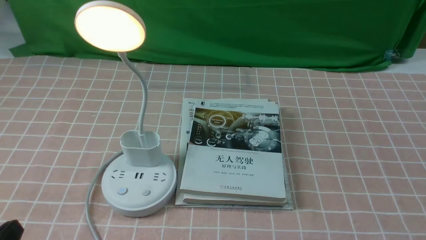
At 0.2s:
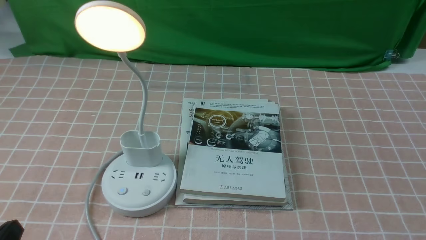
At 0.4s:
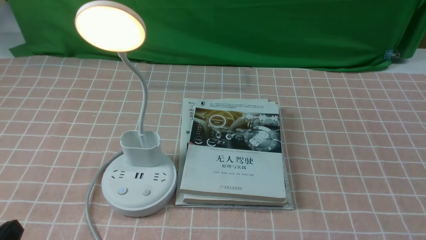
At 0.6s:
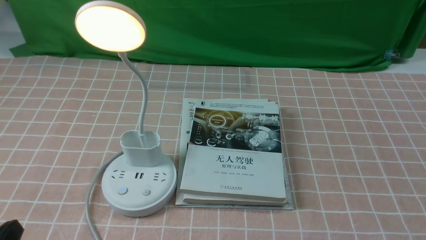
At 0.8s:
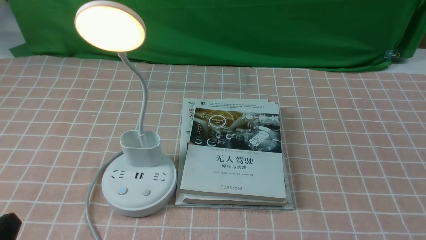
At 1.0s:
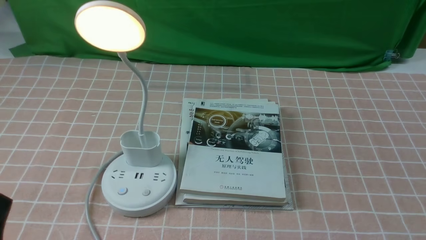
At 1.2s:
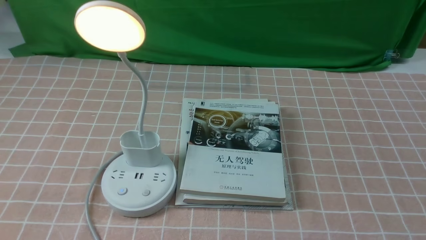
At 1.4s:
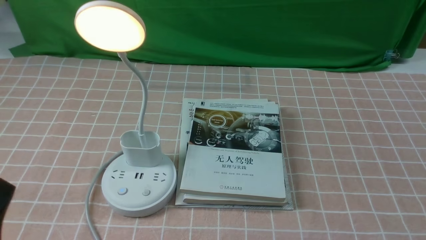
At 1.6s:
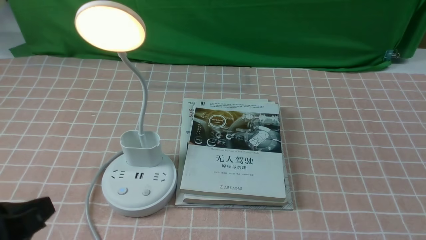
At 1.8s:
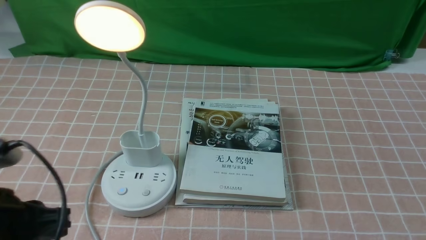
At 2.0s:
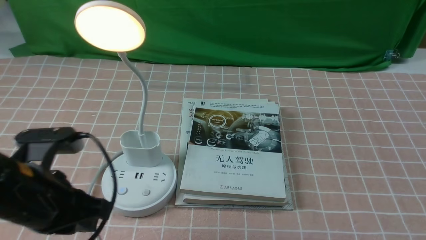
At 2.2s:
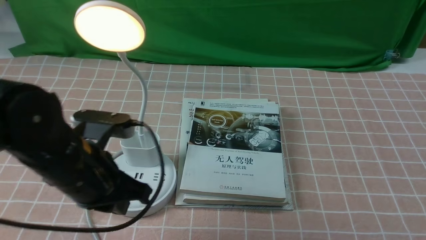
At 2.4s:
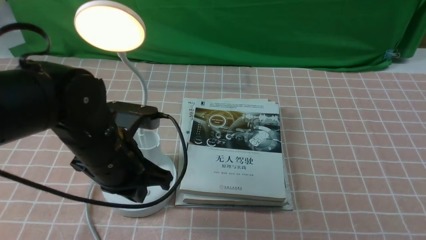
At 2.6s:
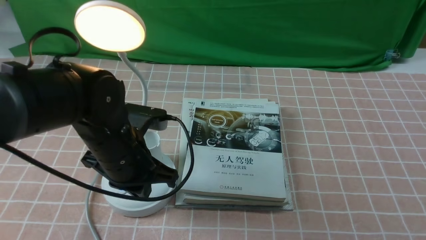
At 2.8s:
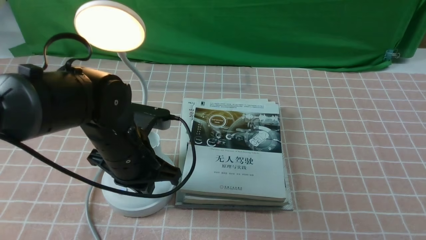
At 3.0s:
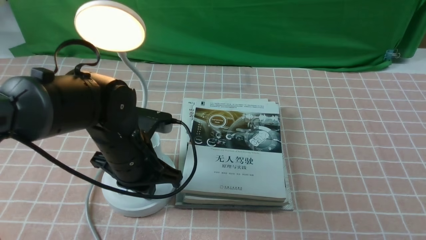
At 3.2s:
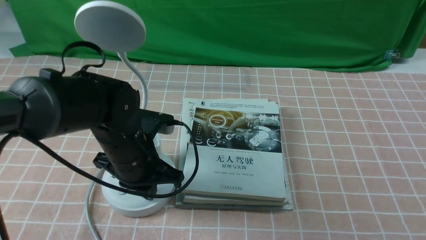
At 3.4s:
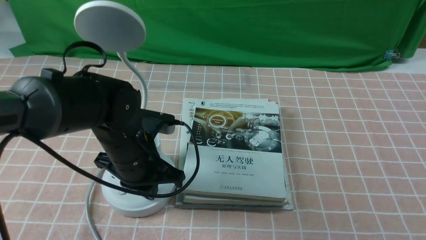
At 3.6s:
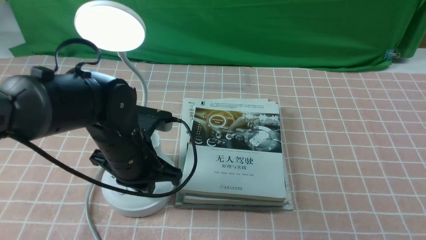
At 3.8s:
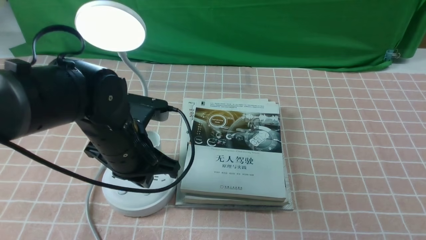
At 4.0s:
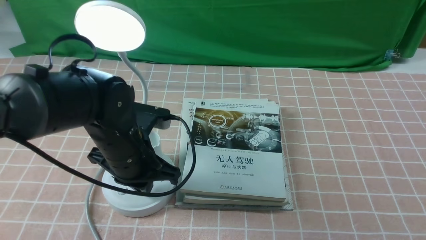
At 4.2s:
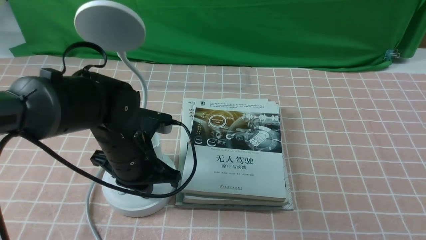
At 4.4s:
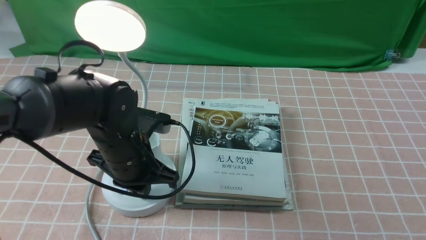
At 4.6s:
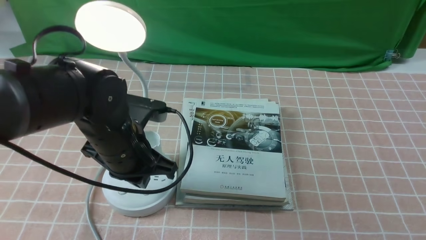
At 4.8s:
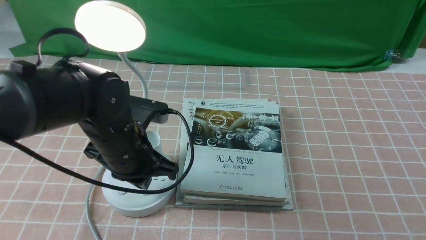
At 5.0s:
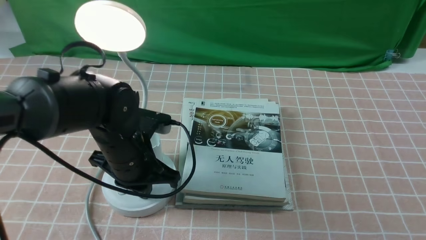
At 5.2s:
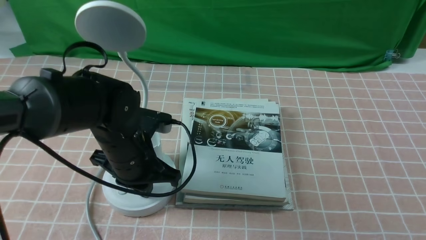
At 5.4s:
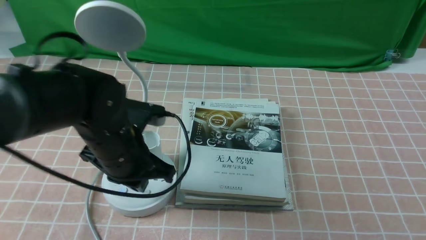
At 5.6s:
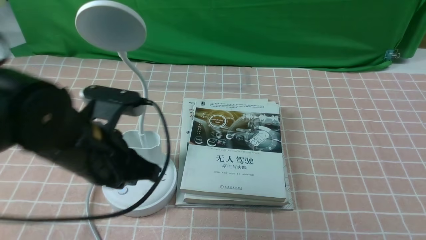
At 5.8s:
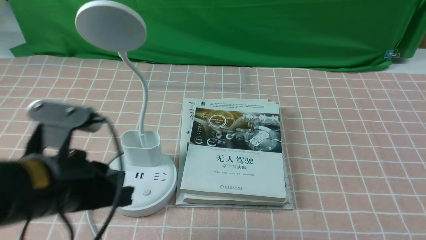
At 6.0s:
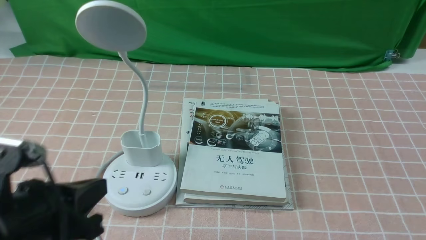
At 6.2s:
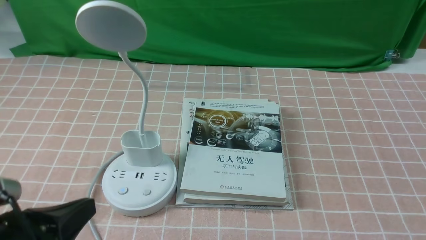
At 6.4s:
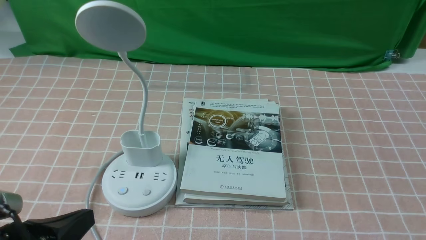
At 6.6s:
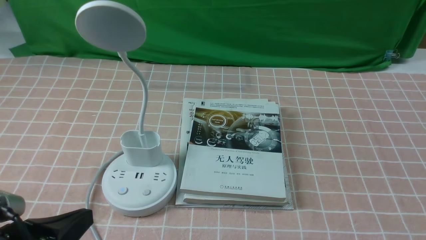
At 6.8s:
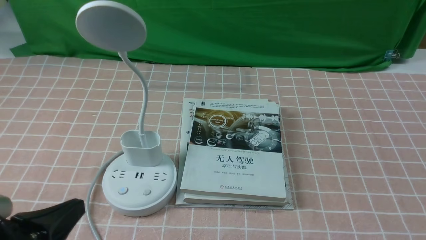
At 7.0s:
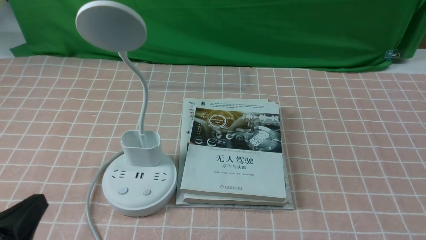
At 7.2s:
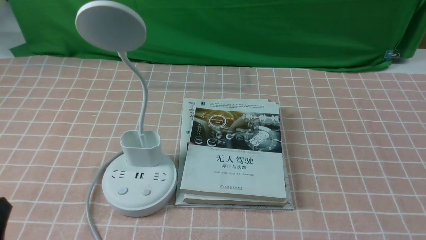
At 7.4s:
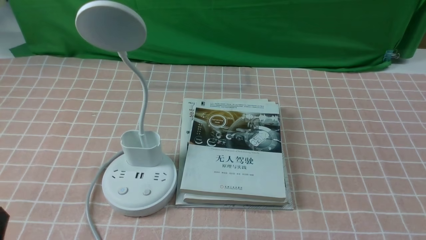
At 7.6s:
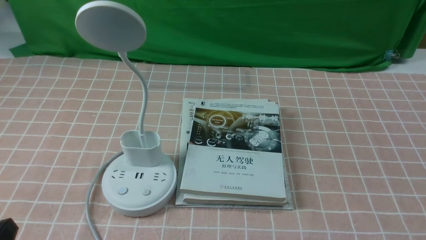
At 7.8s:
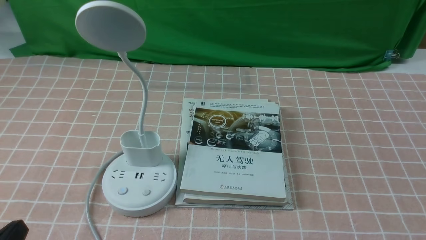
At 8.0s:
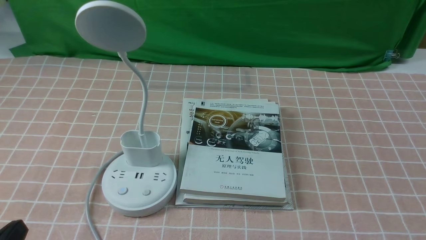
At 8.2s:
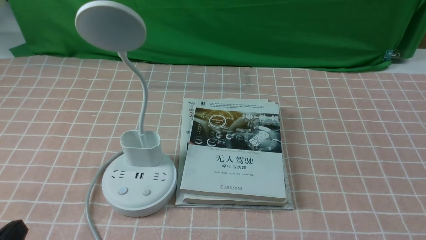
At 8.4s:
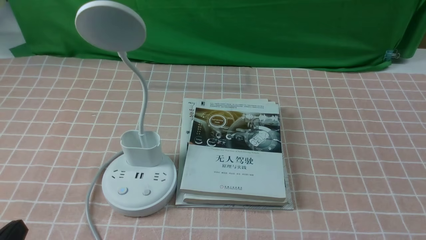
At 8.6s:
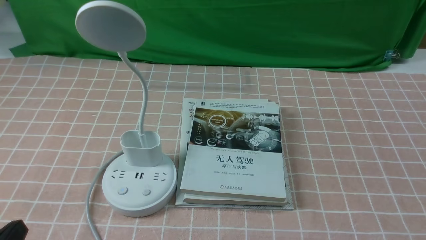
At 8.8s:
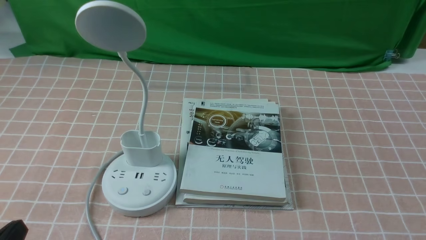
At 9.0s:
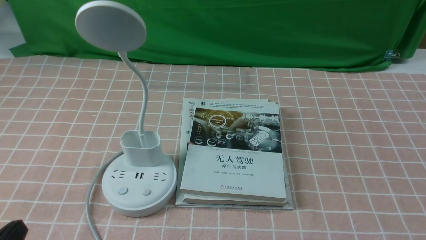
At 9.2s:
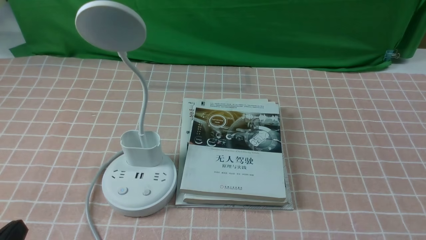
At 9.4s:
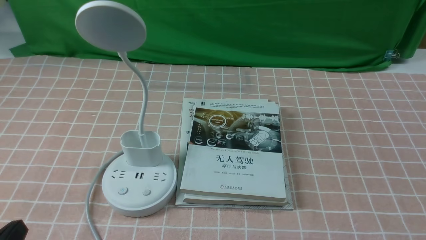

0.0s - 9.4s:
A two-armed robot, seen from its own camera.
Task of the whole recording: turn off the table lamp on the pink coffee tablecloth by hand.
Step, 0.0s - 5.4s: use the left arm to press the button switch on the lamp holder.
0.0s - 1.6s: The left gripper travels upward by some 10 cm.
1.6s - 3.2s: The left gripper travels forward and to the right by some 25 cm, and closes its fingers.
3.2s - 4.8s: The grippers stay close to where they were, moving slightly.
4.8s - 6.2s: The left gripper heads backward and to the left, covering roughly 20 cm.
6.2s - 7.8s: The left gripper is displaced downward by some 5 cm.
7.8s - 9.4s: The two grippers keep their place.
